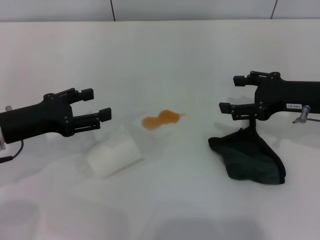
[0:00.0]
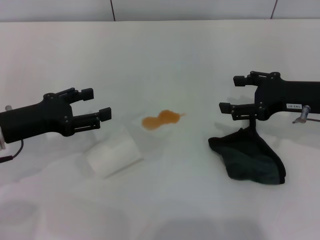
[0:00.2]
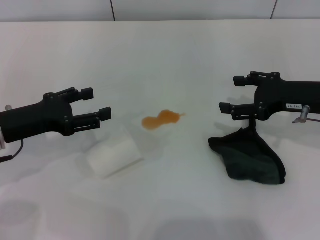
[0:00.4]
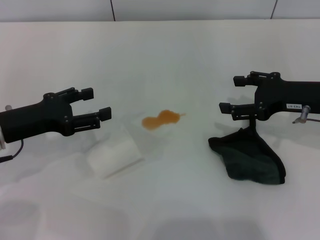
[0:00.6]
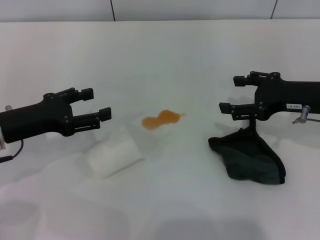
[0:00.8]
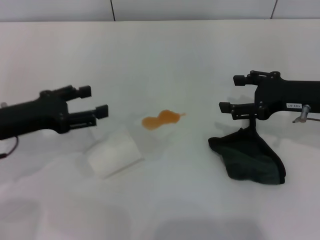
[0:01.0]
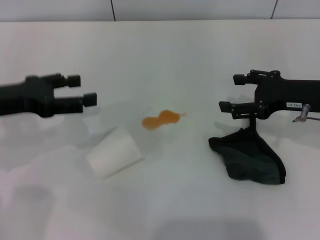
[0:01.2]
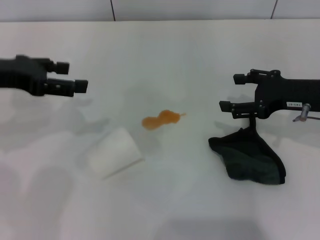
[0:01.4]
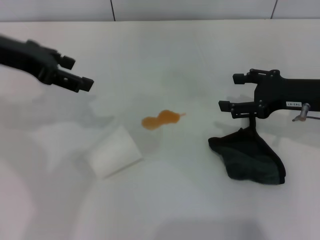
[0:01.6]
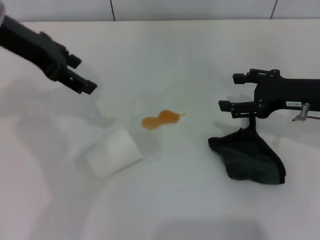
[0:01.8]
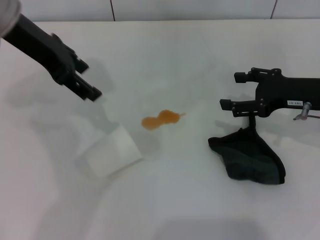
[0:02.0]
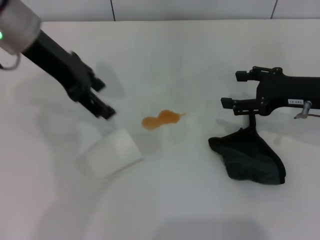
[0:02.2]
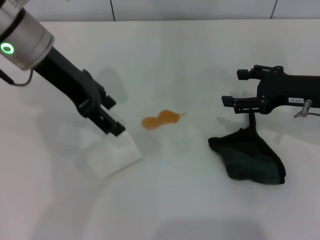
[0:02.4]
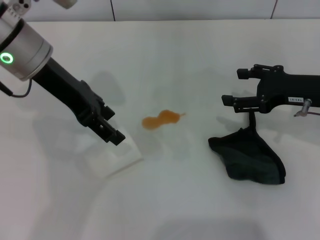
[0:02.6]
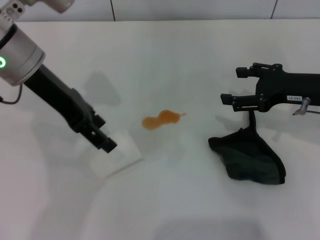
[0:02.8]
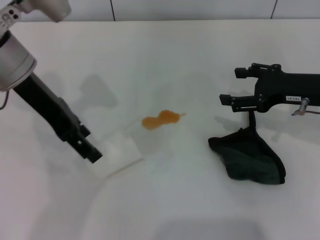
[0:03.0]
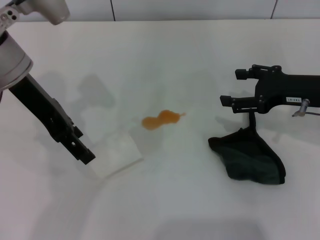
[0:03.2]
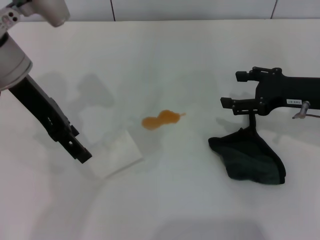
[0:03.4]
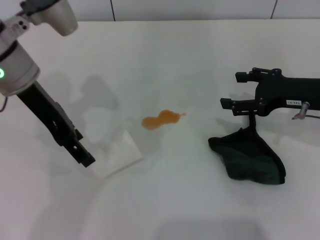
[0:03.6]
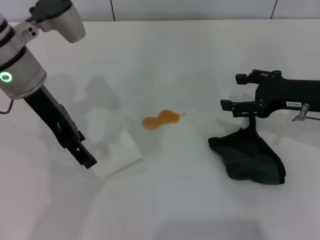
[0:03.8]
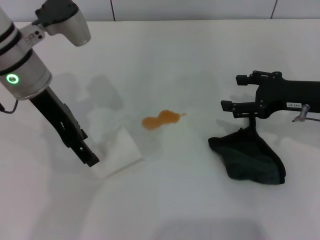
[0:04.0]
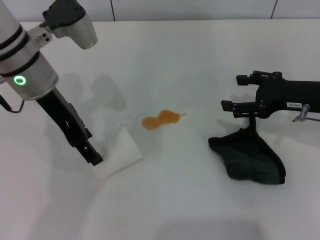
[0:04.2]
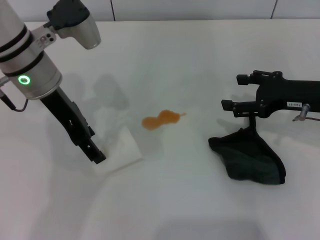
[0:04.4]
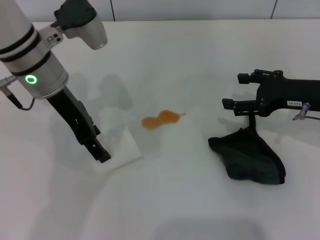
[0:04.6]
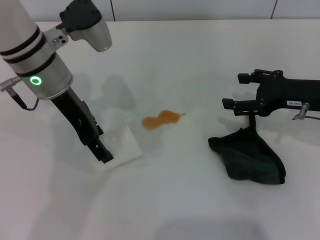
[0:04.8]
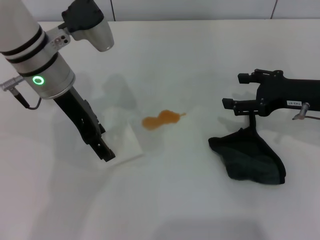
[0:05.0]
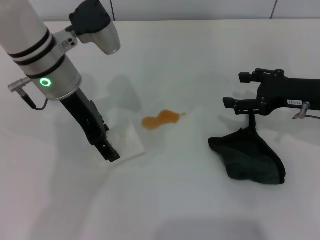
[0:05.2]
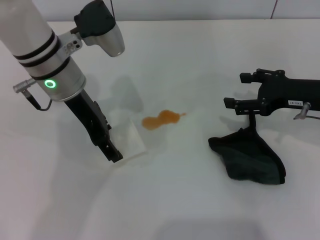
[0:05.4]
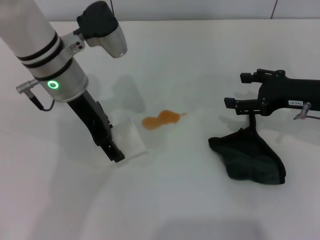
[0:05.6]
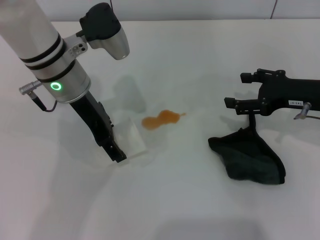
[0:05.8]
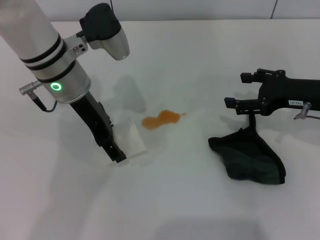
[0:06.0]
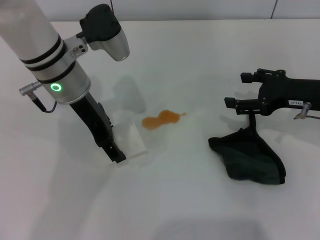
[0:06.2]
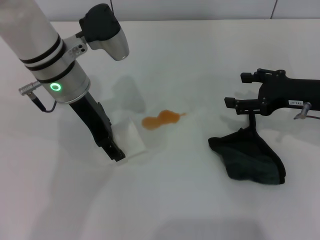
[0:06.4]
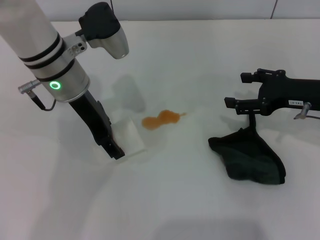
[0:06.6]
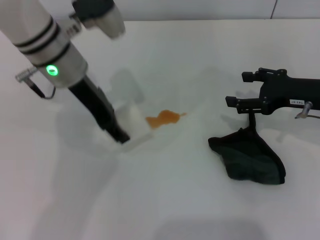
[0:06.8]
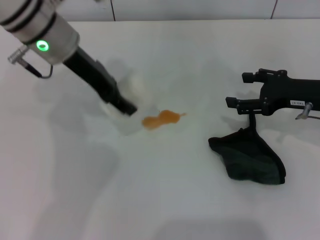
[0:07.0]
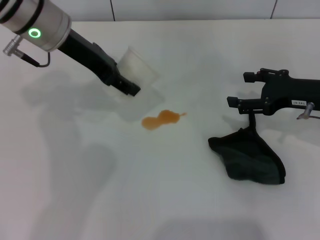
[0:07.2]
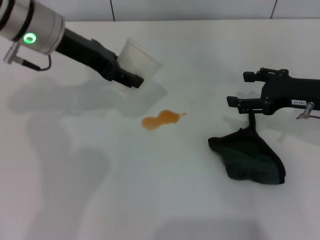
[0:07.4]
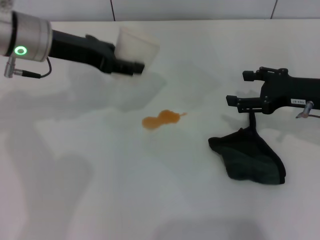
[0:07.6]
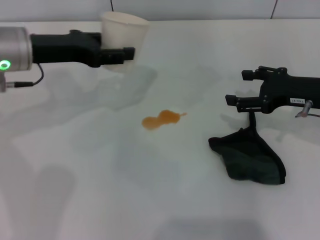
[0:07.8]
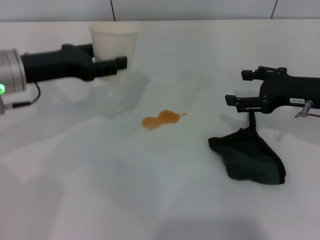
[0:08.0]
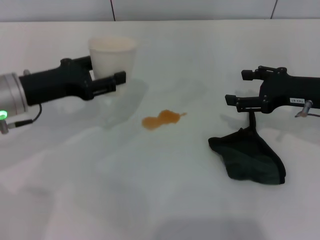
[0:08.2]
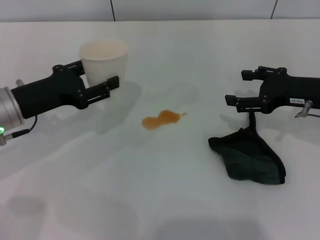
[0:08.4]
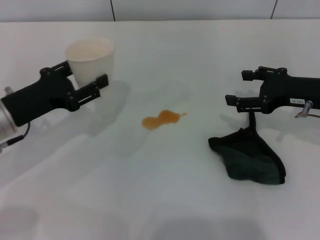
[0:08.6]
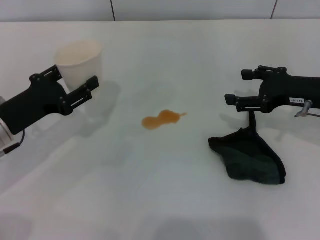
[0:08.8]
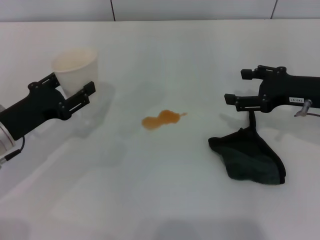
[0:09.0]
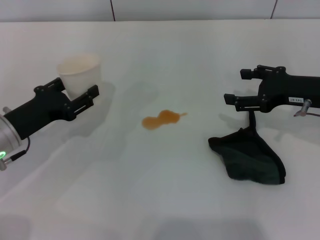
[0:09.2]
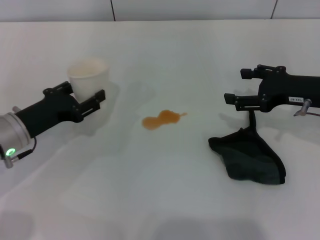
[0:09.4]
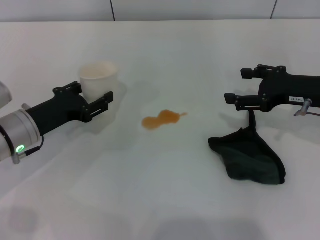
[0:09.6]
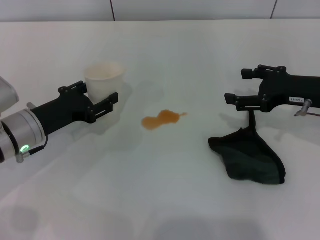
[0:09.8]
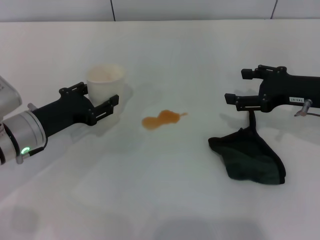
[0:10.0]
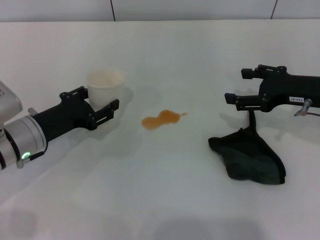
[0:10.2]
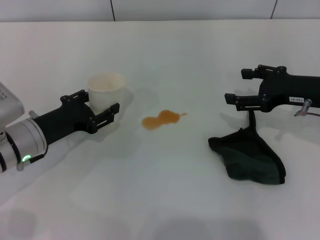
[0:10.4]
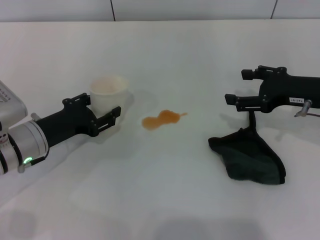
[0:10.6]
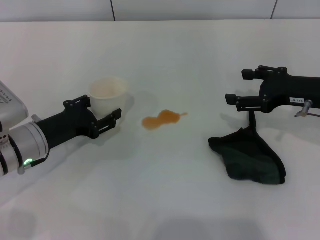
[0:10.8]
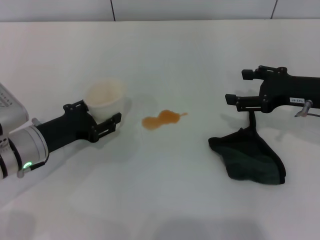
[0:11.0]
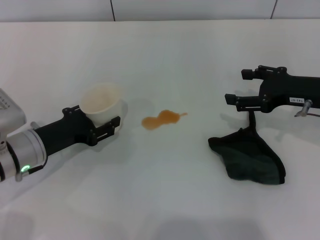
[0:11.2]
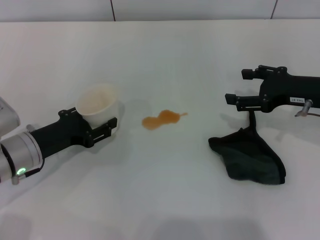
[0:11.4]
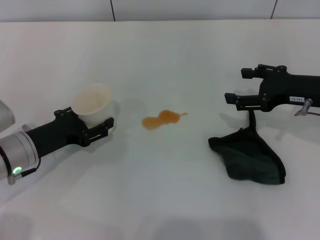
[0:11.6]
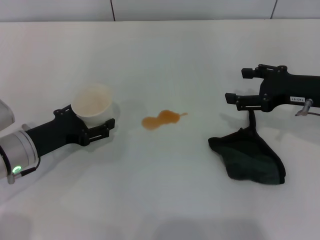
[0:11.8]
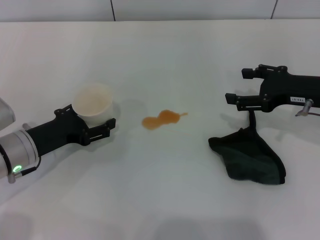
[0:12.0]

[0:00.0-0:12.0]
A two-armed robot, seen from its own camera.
Step, 0:00.0 to 0:06.0: Grasp the paper cup with the left gripper.
0:00.0 to 0:01.6: The left gripper goes about 15 cm upward and forward.
0:01.6 to 0:03.0: The left gripper goes roughly 5 cm to the right.
0:03.0 to 0:04.4: There are only small adjustments of the grippers.
0:04.4 to 0:06.0: The left gripper closes.
0:06.0 to 0:07.6: The left gripper moves to the left, roughly 5 cm, and closes.
0:07.6 to 0:09.0: The left gripper is displaced downward, backward and to the left by roughly 20 cm.
0:09.0 to 0:10.4: The grippers make only small movements.
0:10.4 to 0:12.0: The left gripper opens its fingers.

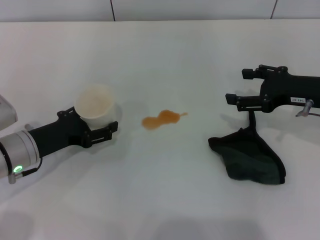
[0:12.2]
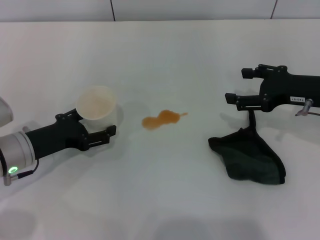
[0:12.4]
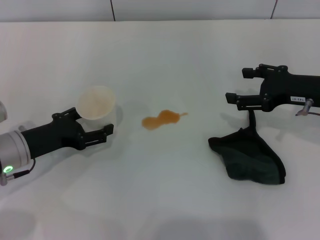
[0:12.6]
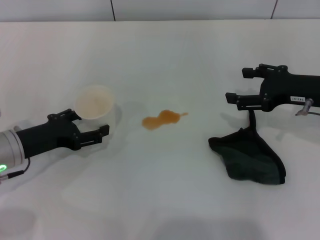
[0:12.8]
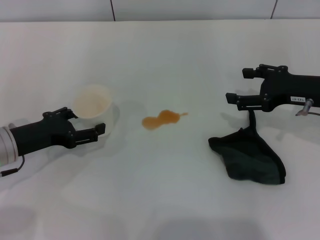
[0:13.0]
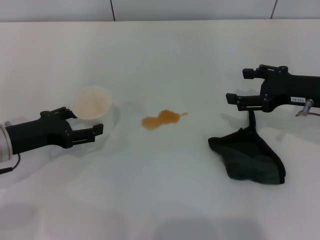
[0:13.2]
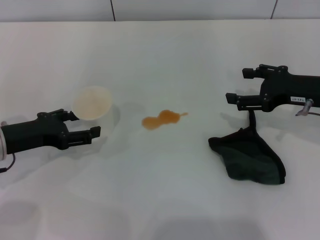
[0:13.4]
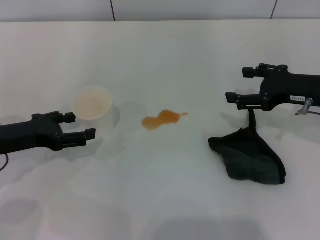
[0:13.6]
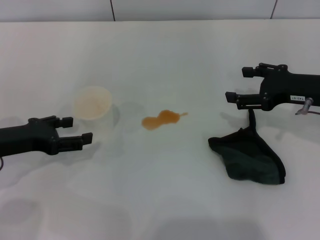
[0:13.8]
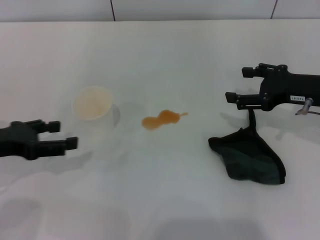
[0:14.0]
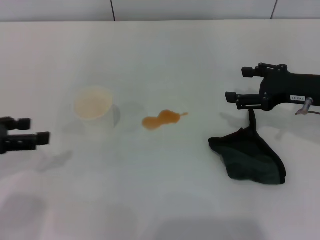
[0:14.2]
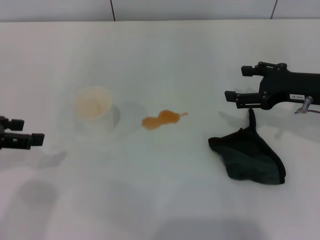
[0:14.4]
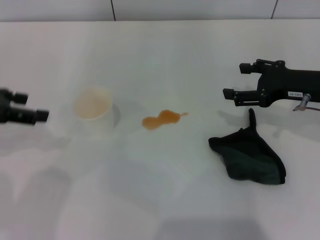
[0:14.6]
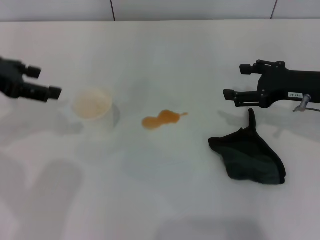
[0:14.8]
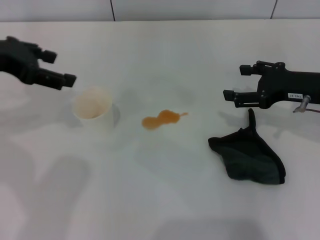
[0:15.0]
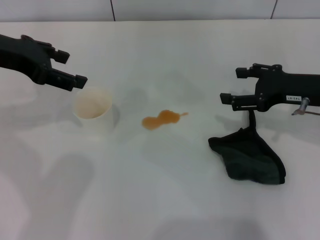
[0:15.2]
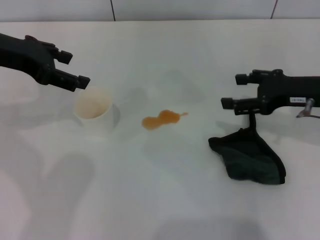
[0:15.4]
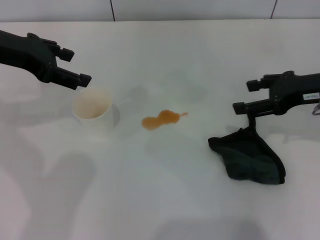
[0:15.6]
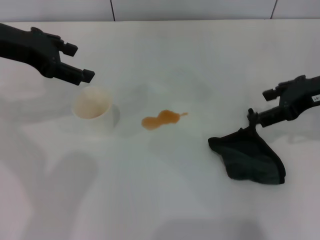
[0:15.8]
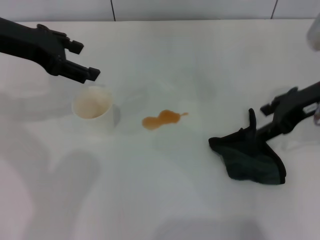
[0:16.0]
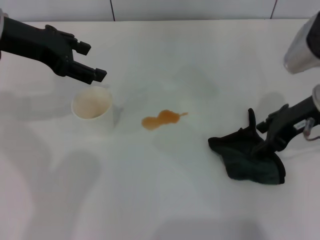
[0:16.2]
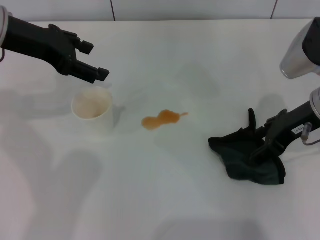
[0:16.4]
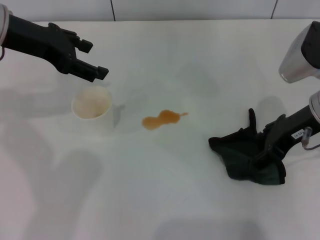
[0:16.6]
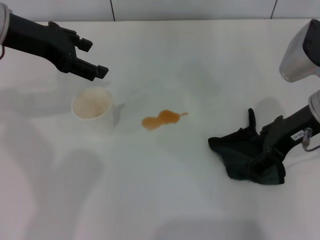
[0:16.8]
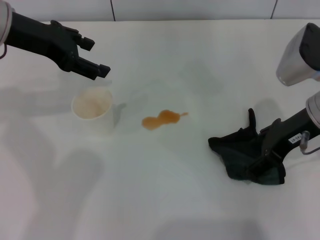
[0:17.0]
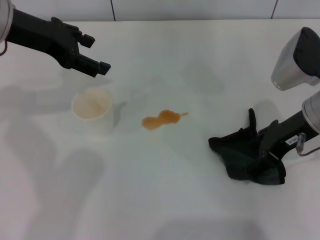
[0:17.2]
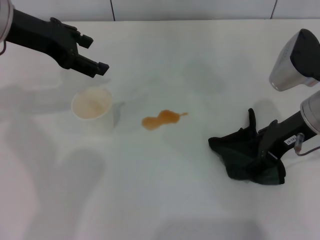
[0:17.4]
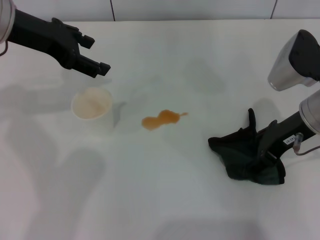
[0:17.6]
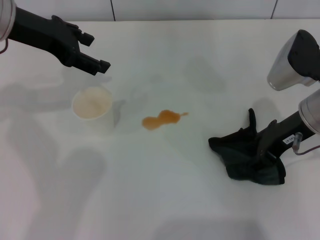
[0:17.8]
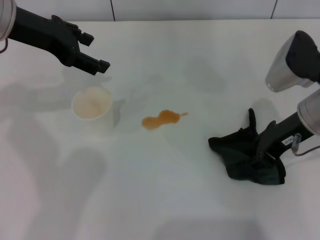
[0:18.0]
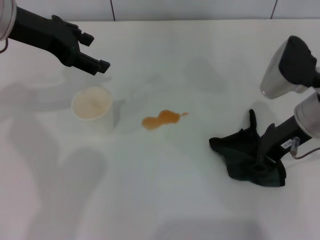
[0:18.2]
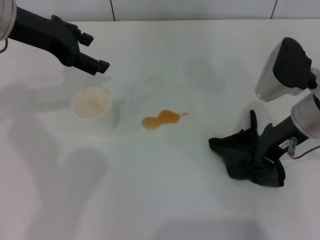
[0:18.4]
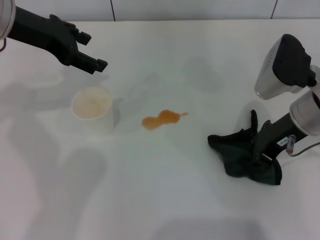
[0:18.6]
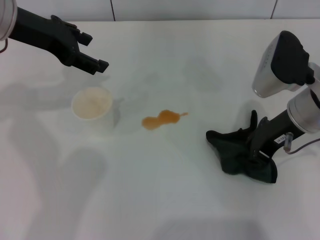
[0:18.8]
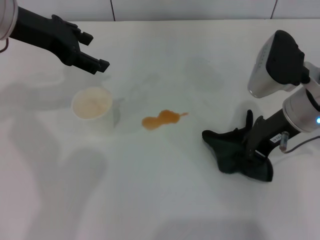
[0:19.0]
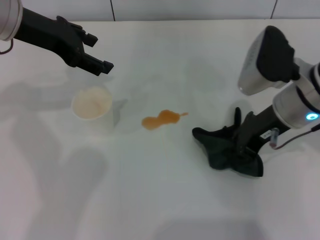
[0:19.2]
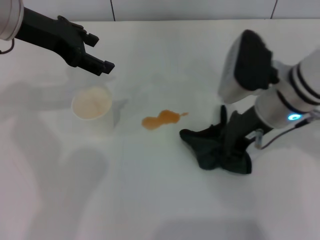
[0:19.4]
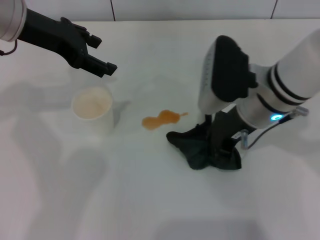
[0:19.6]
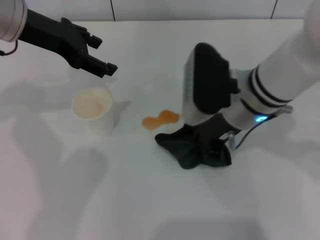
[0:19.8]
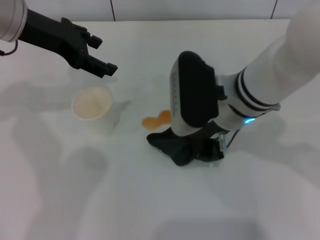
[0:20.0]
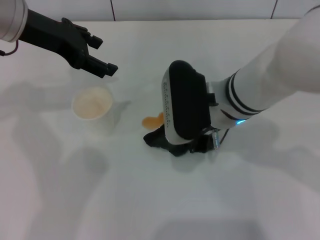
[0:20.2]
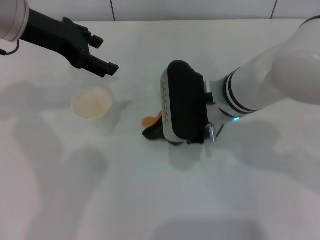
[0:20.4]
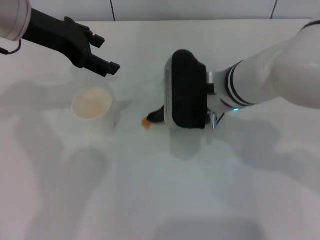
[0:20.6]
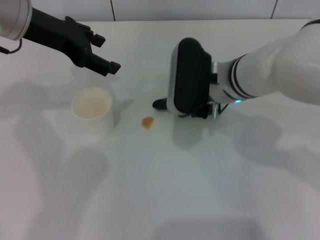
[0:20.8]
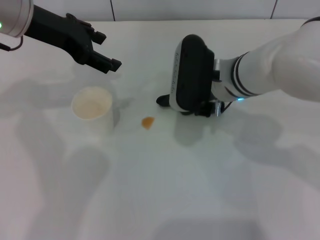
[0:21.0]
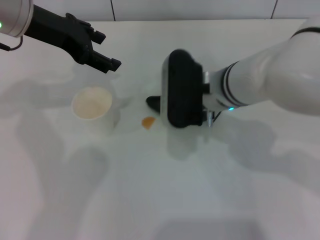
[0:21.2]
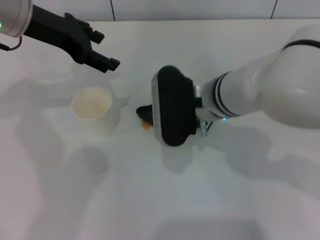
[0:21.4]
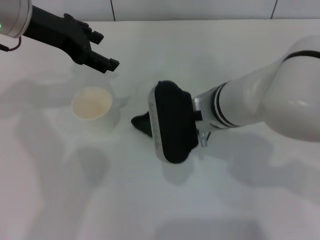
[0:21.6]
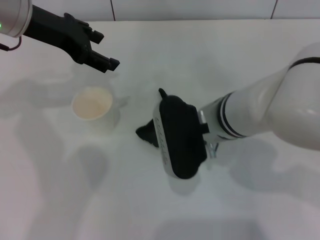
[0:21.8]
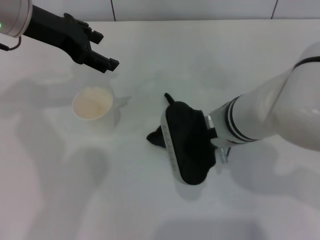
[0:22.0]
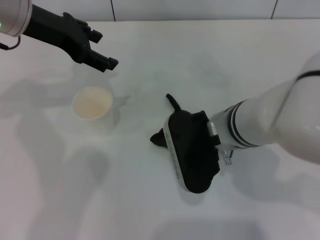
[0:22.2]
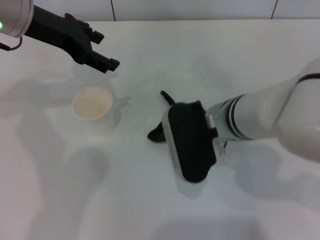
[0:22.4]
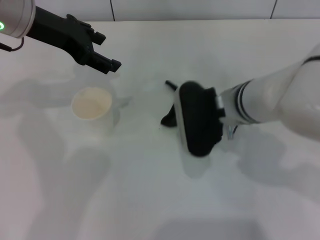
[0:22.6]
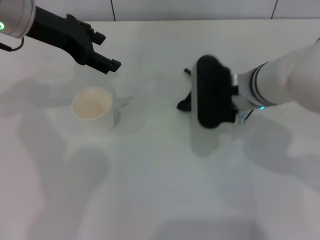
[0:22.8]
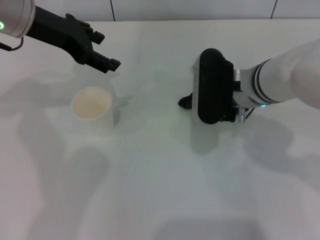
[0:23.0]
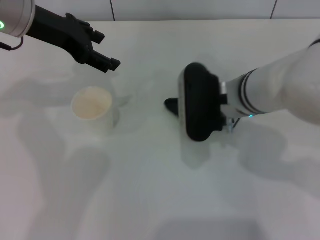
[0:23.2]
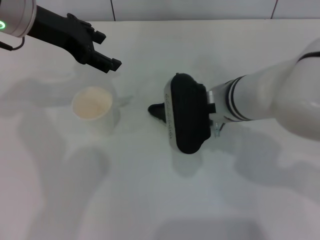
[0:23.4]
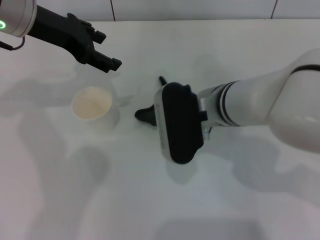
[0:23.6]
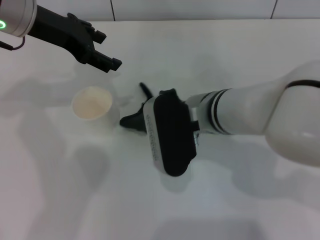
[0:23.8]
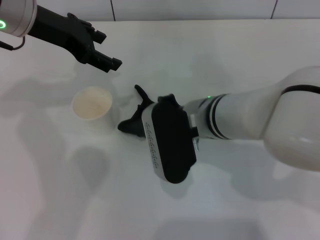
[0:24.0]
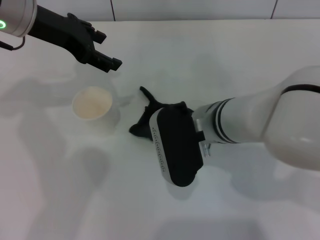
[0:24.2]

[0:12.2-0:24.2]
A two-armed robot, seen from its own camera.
Step, 0:13.0 to 0:18.6: Grasp the rag with the right gripper.
0:12.2 to 0:13.8: The left gripper shifts by about 5 cm.
0:13.8 to 0:15.2: The left gripper goes approximately 15 cm upward and forward.
0:15.2 to 0:16.6: The right gripper shifts by roughly 5 cm.
0:16.6 to 0:18.2: The right gripper closes.
0:18.2 to 0:19.8: The right gripper travels to the left by about 10 cm, and closes its fingers.
0:21.2 to 0:24.2: The grippers stay close to where they were, moving slightly.
